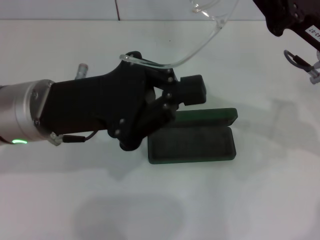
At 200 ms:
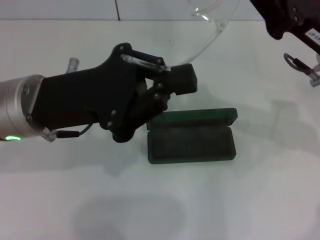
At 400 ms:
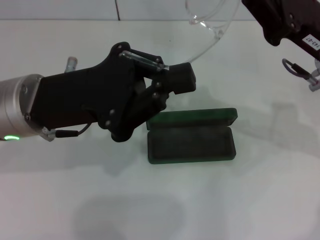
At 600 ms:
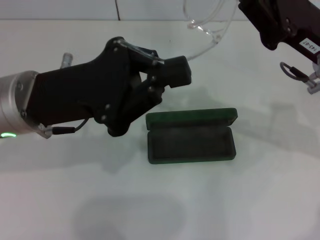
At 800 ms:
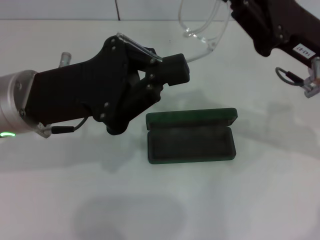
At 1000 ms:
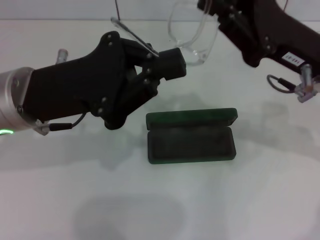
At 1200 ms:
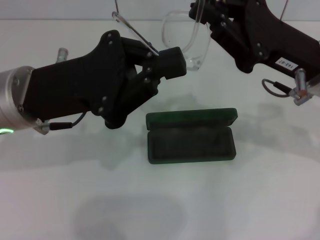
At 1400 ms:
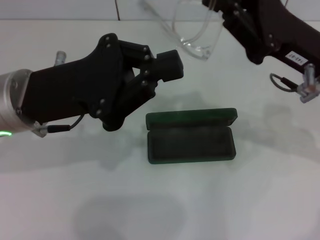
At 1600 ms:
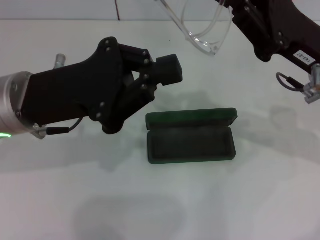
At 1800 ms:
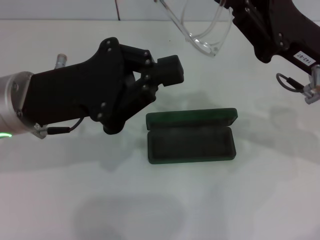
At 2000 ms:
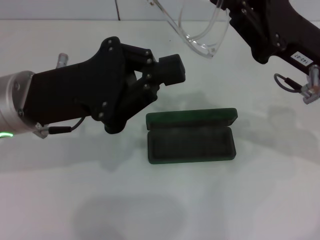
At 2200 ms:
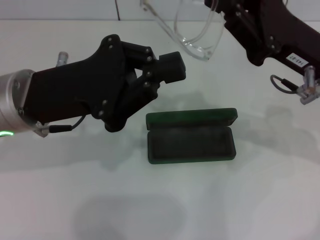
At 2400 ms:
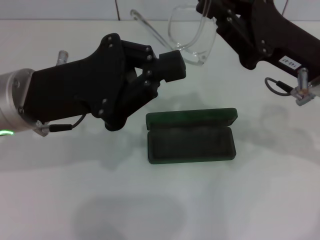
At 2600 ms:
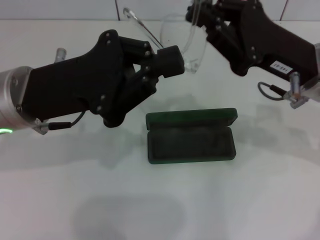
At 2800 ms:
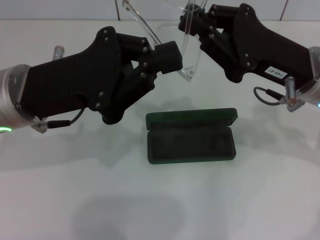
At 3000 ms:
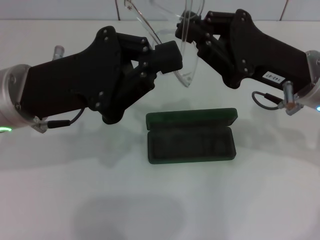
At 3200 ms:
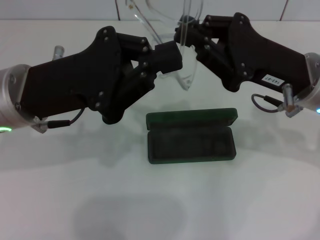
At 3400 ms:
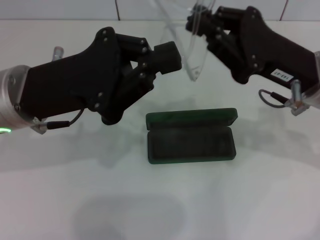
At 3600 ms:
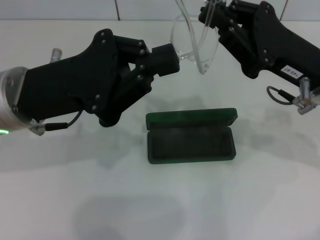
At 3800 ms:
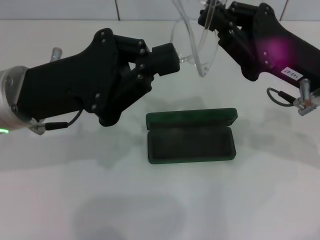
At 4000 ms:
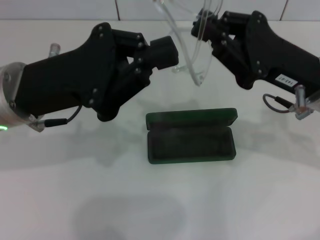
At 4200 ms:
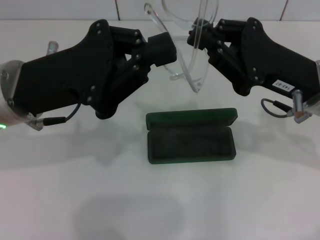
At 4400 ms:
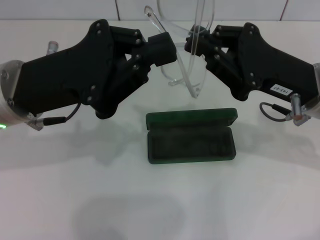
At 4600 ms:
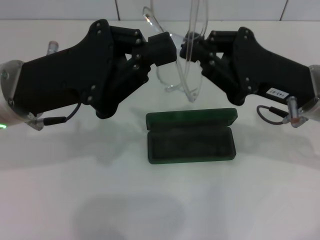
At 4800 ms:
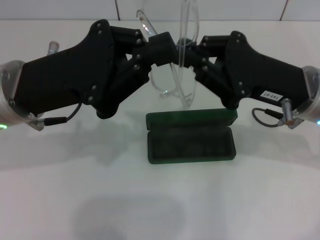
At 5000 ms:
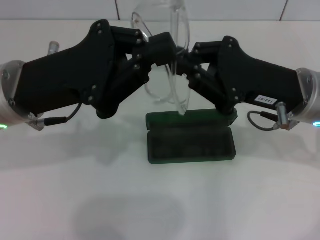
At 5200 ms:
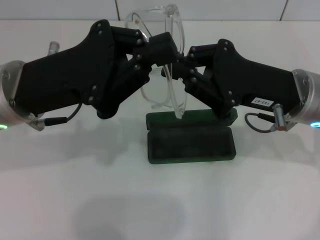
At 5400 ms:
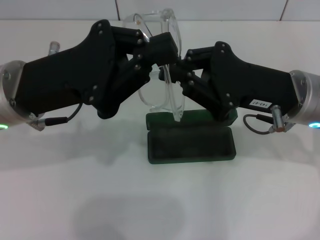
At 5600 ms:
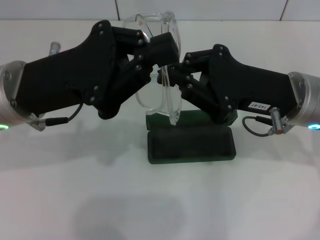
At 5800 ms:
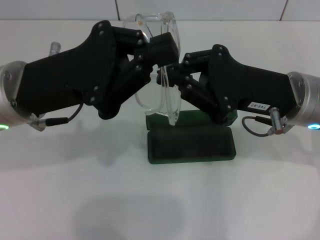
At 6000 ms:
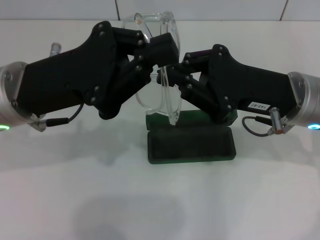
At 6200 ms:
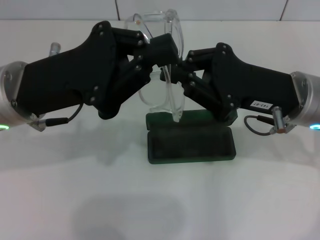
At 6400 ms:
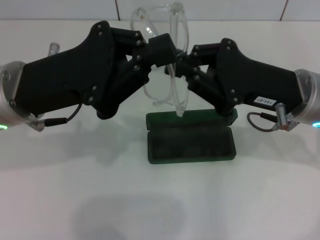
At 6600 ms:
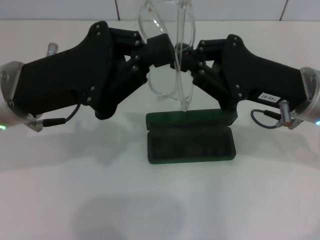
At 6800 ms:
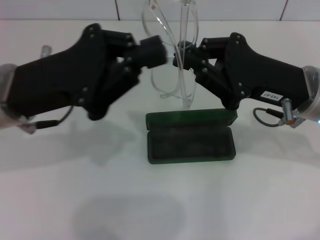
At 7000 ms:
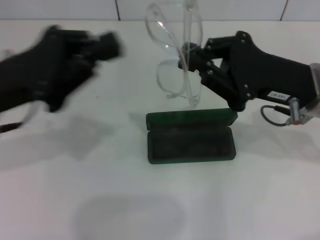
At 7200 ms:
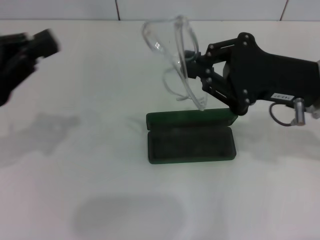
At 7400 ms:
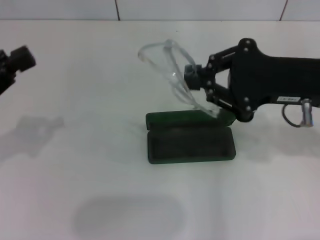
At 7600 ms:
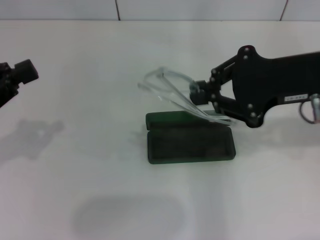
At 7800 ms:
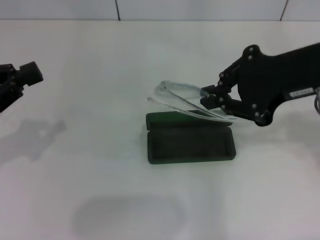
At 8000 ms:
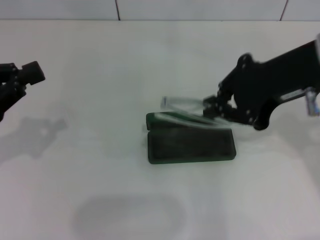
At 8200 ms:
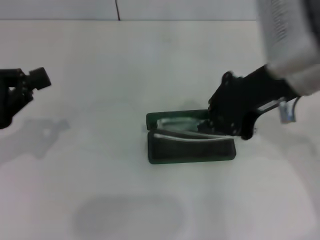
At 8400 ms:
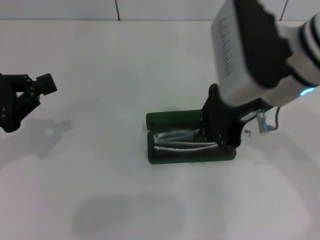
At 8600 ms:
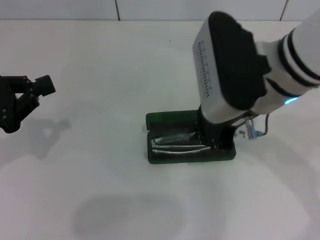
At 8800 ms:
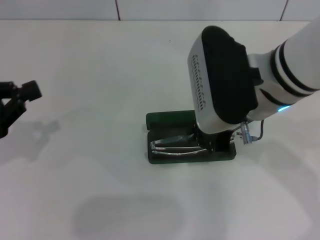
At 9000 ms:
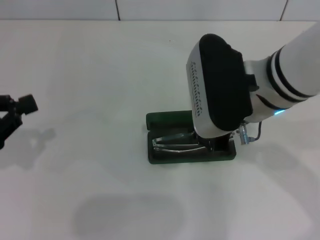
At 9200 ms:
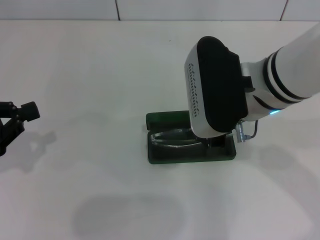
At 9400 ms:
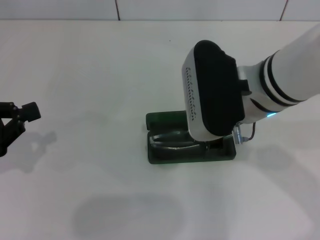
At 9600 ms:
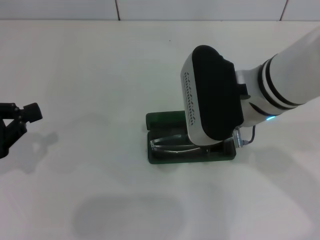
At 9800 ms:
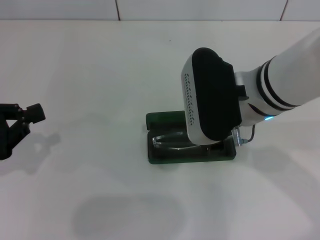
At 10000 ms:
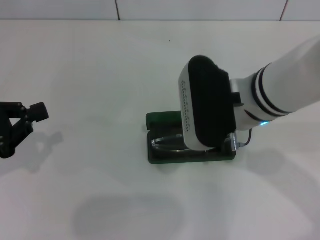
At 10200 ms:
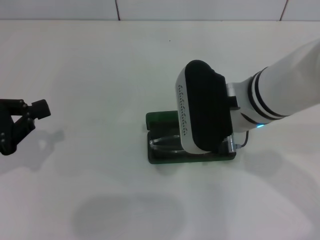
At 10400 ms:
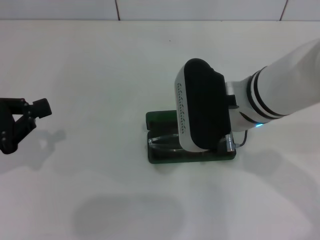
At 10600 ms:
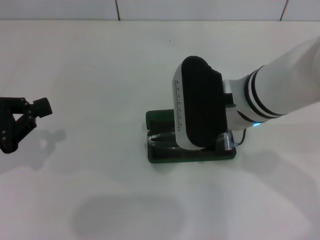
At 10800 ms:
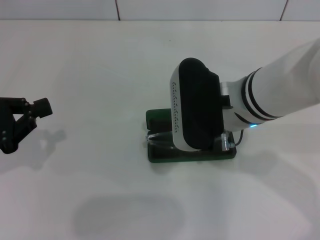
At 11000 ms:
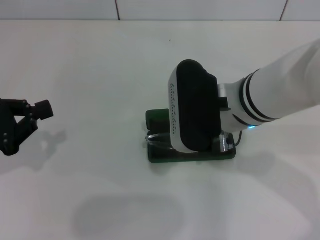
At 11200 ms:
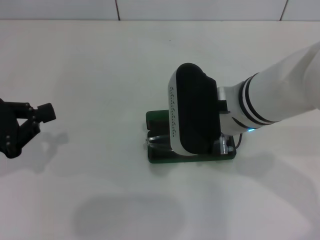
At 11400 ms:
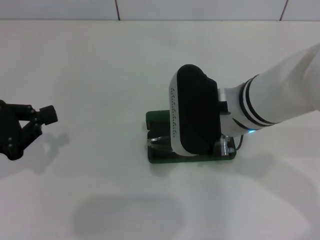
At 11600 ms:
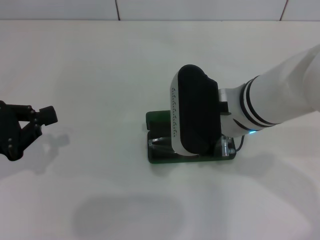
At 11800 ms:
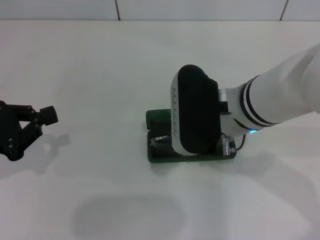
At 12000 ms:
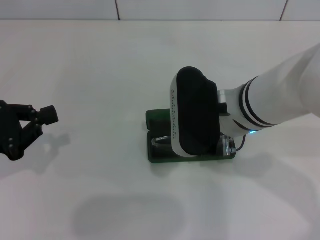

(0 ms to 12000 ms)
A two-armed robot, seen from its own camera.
Step, 0 ms - 5600 ms: Fold the frame with your left hand.
0 ms - 1600 ms: The grippers make only small movements.
3000 ms - 6000 ms: The grippers make only small movements.
6000 ms - 7600 ms: The right gripper goes roughly 10 cm upward, while the left gripper is displaced to the left by approximately 15 cm.
7600 ms - 9000 ms: The right gripper shifts approximately 10 cm to the left.
9000 ms - 10400 ms: The grippers make only small movements.
10400 ms - 12000 ms: Both grippers stay about where they are.

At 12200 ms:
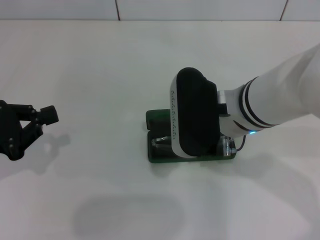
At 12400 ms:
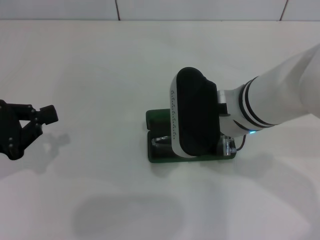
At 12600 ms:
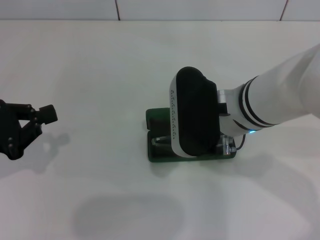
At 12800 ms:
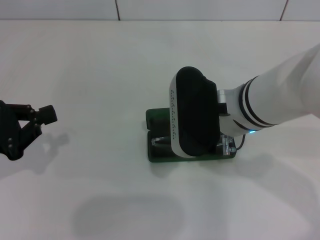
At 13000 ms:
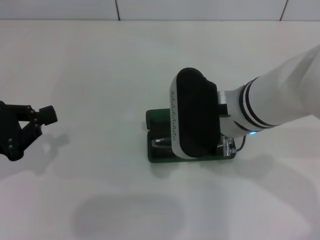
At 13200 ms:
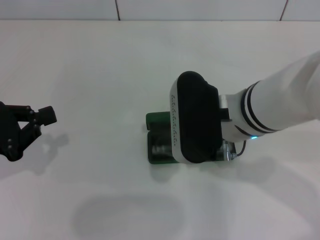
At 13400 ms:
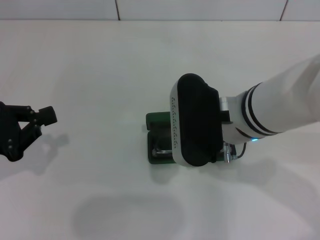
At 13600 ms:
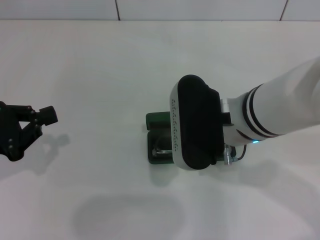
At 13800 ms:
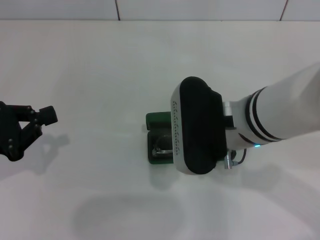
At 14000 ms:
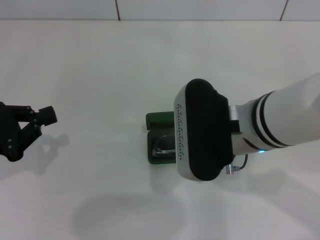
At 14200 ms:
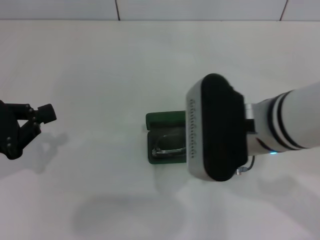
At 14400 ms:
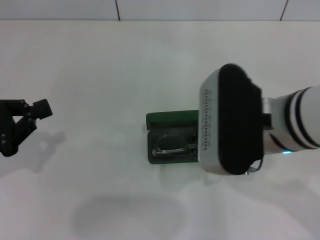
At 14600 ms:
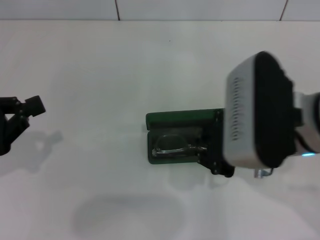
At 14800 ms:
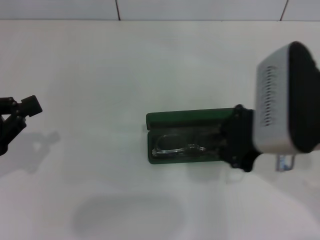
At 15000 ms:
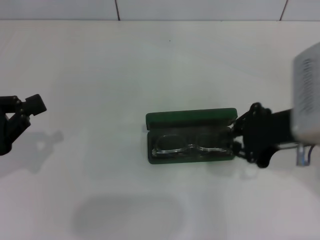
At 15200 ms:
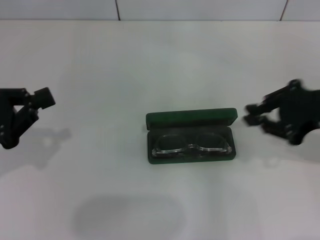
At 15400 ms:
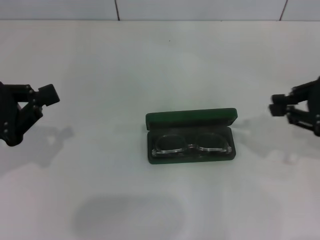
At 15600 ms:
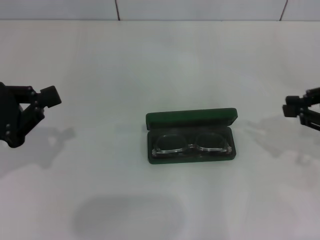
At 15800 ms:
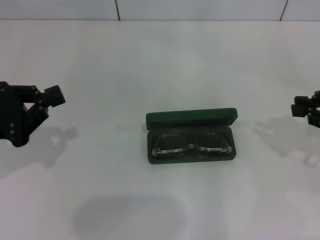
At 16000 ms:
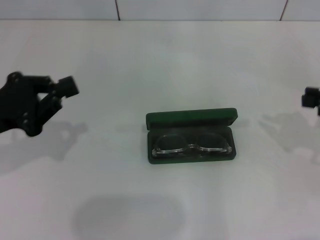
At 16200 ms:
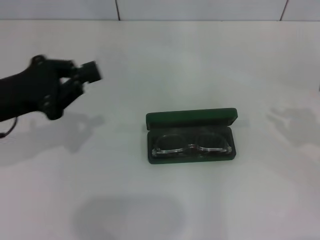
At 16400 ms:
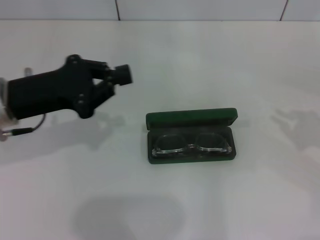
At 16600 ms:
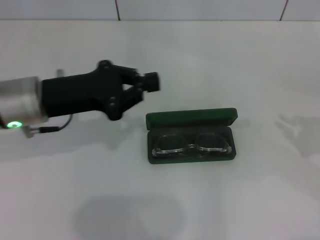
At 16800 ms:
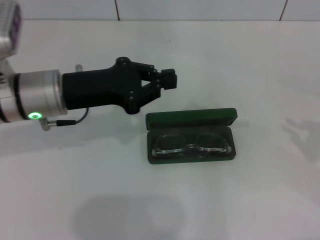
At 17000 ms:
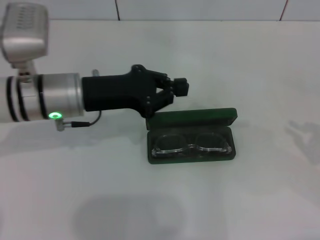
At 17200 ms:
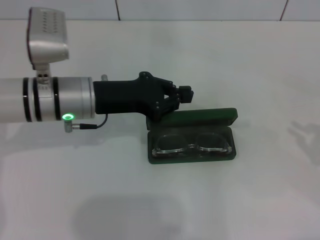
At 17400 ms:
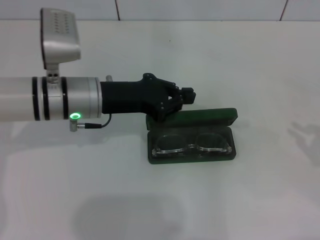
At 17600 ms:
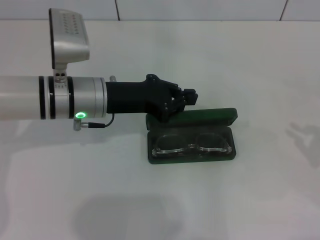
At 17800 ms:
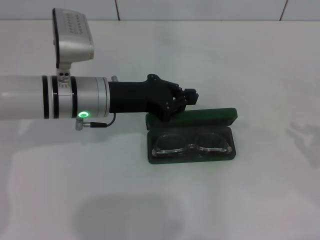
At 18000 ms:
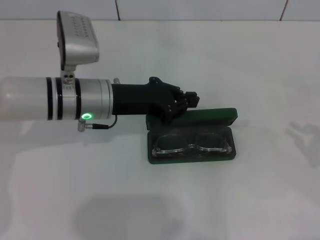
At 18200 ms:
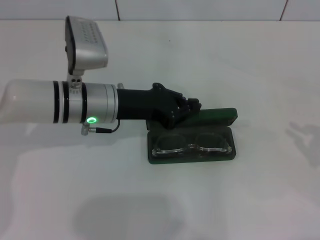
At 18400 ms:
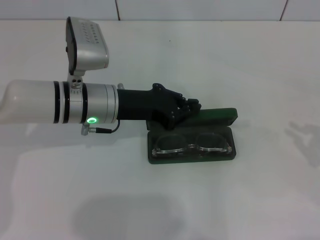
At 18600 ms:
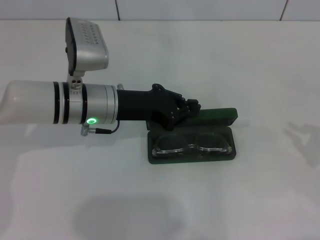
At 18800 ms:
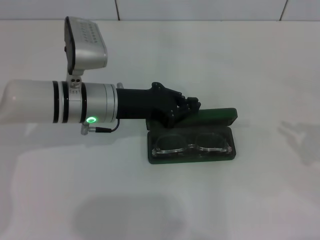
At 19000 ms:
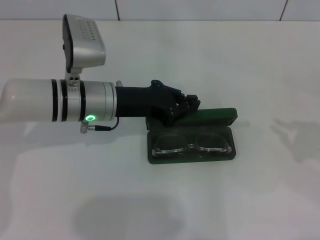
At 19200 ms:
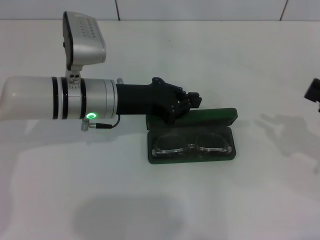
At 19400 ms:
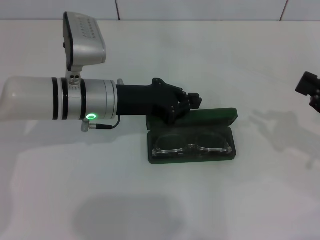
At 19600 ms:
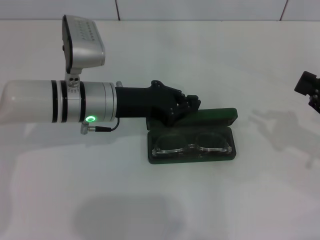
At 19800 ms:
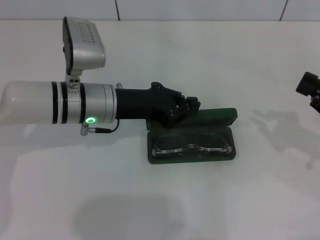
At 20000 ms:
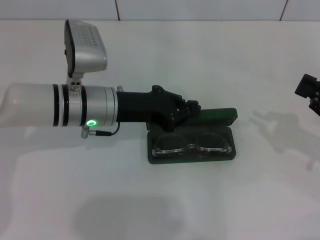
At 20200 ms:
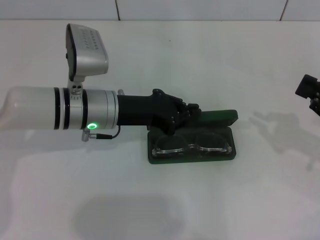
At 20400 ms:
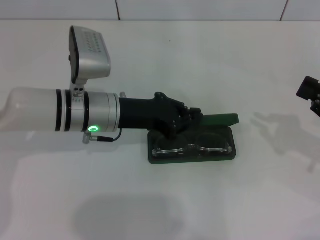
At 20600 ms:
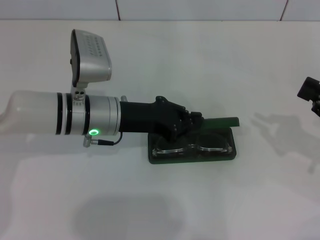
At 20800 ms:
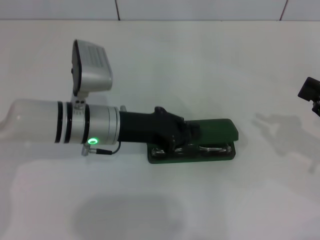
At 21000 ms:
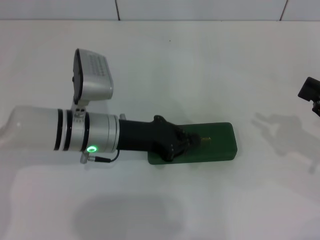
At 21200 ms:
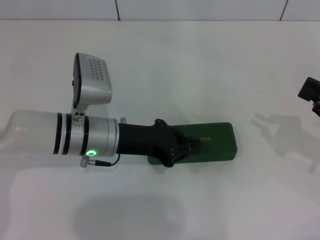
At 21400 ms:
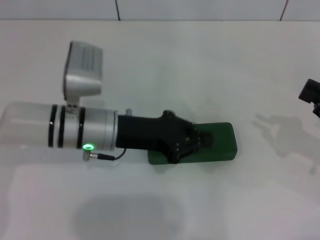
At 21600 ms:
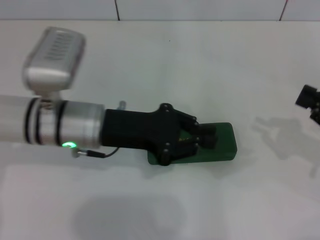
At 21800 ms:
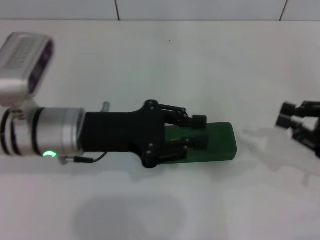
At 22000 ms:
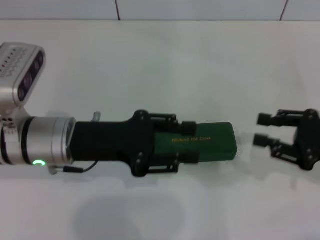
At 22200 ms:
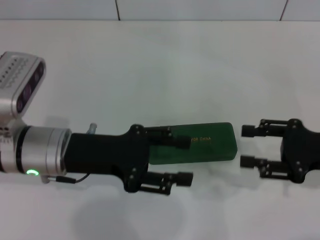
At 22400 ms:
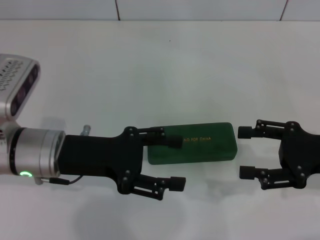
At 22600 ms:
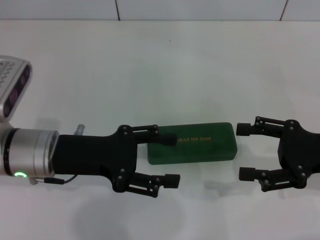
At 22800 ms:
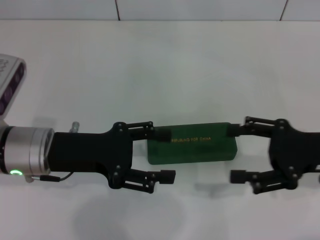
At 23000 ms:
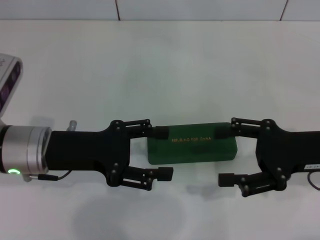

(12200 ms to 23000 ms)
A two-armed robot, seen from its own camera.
Step, 12200 ms - 14200 ms: Put the glasses into the case with your right hand.
Step, 14400 ms - 20800 ms: Close the glasses case with your left hand.
12200 ms - 13800 ms: The grippers move only a little.
13800 ms - 15200 ms: The right gripper moves to the right, about 15 cm.
15200 ms - 16800 ms: The right gripper is displaced to the right and downward by some 15 cm. Meanwhile the left gripper heads to the right and forward, covering about 15 cm.
16800 ms - 18400 ms: The left gripper shifts approximately 5 cm to the right.
18400 ms - 20000 ms: The right gripper changes place by some 5 cm.
20000 ms - 21400 ms: The grippers move only a little.
21400 ms - 23000 ms: The grippers both shift to the left by roughly 10 cm. The right gripper opens its fingers. The left gripper opens up.
